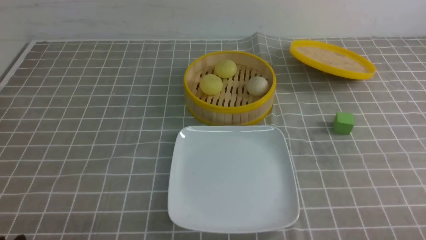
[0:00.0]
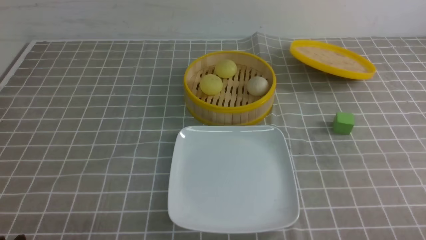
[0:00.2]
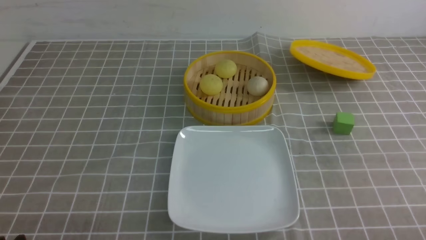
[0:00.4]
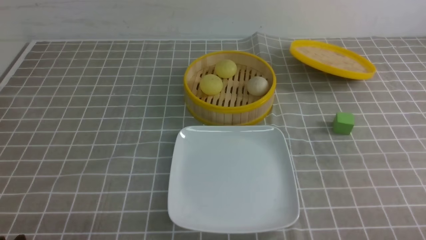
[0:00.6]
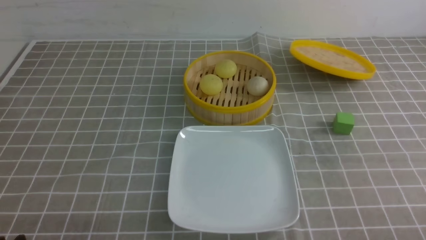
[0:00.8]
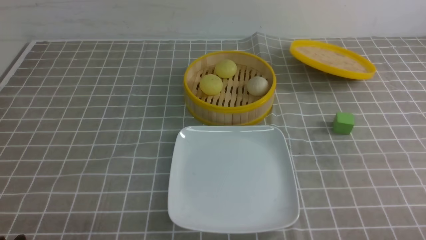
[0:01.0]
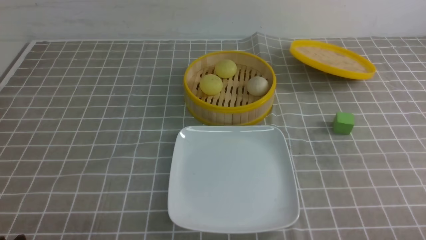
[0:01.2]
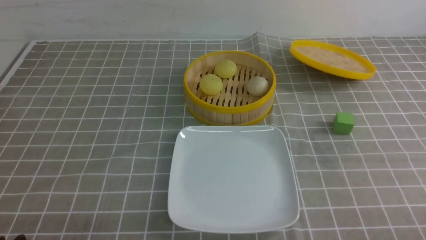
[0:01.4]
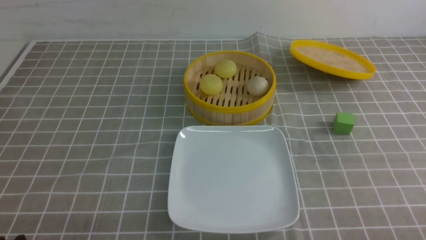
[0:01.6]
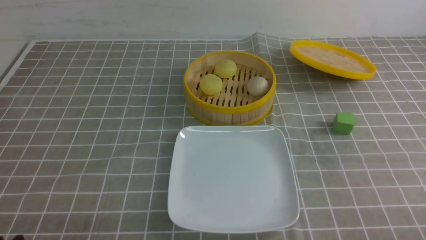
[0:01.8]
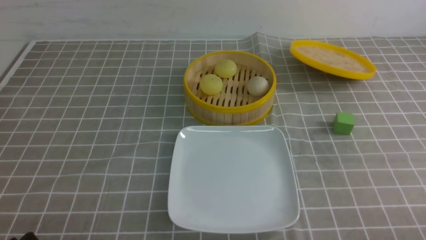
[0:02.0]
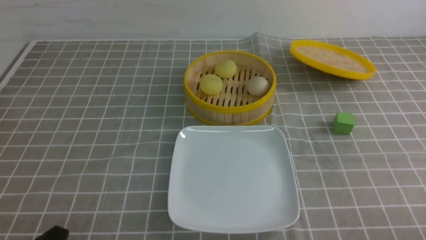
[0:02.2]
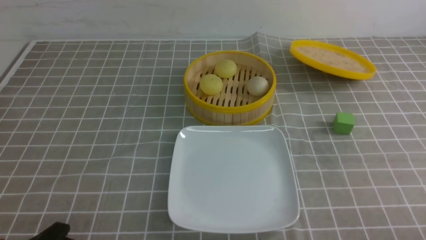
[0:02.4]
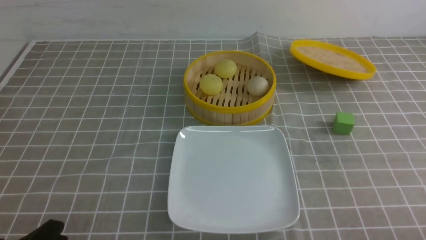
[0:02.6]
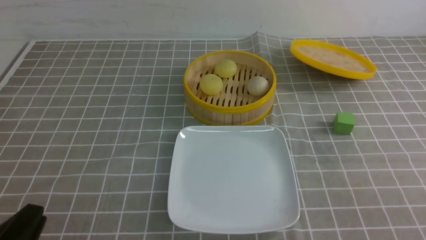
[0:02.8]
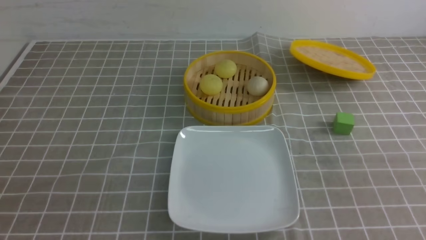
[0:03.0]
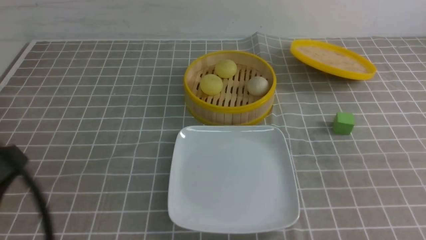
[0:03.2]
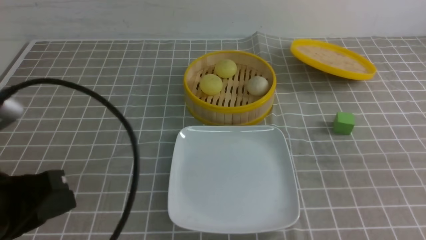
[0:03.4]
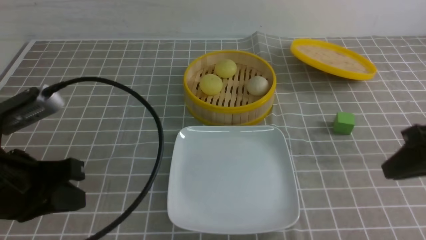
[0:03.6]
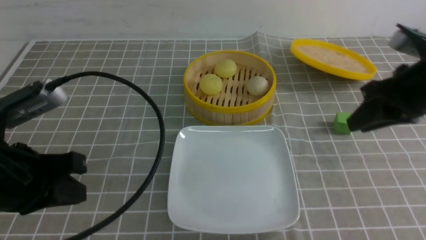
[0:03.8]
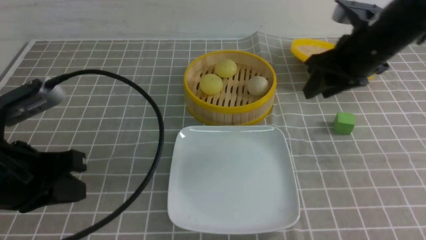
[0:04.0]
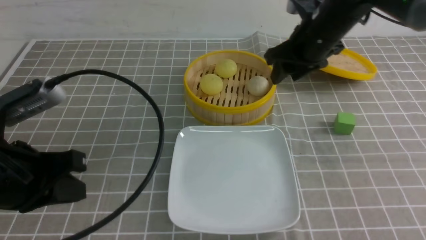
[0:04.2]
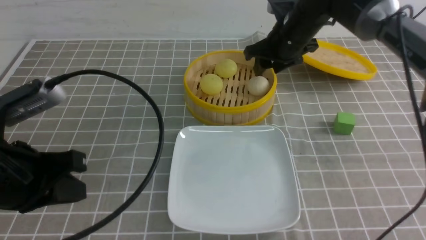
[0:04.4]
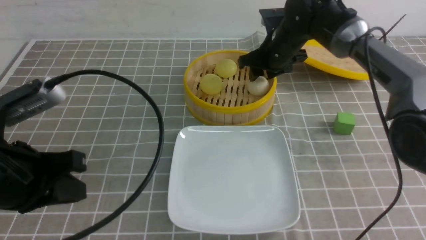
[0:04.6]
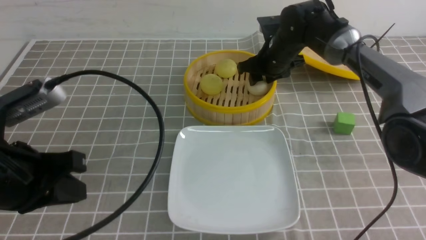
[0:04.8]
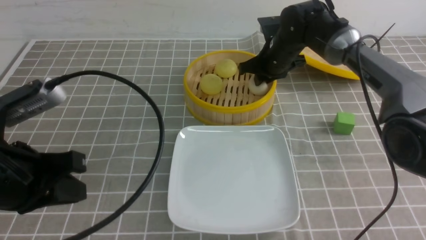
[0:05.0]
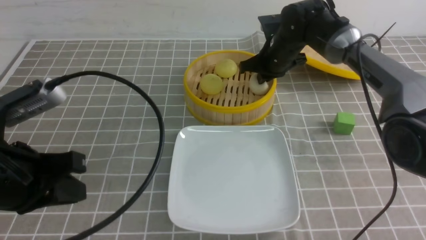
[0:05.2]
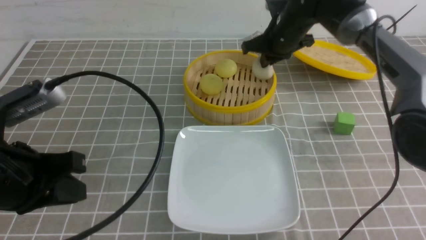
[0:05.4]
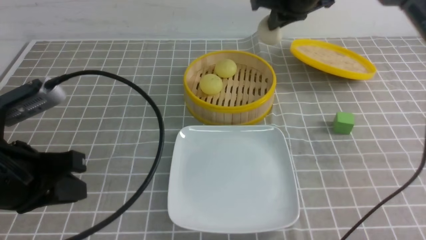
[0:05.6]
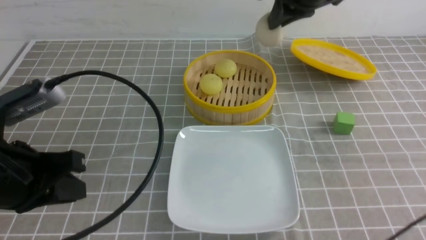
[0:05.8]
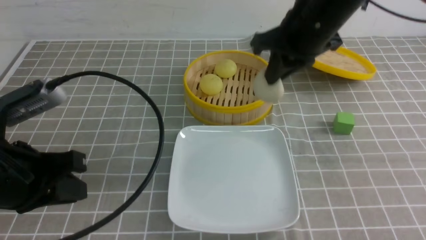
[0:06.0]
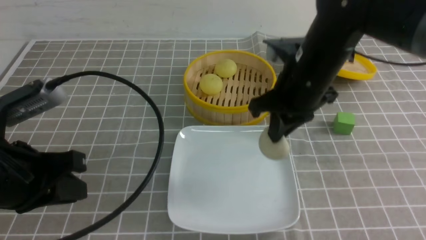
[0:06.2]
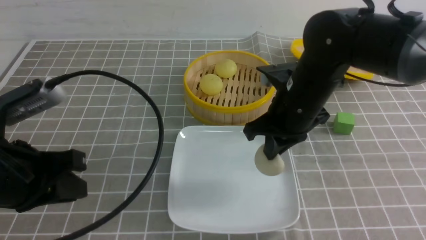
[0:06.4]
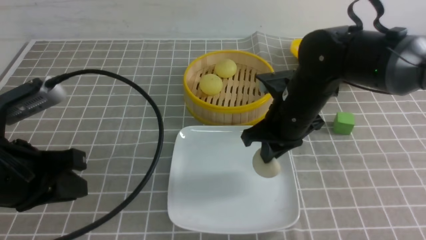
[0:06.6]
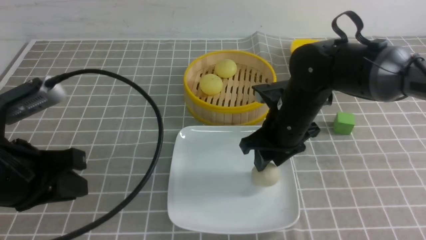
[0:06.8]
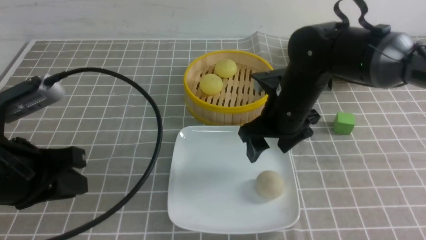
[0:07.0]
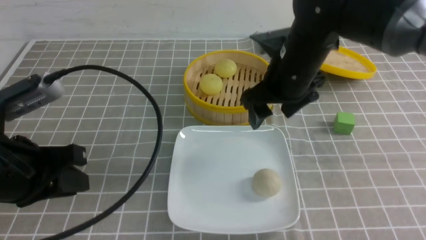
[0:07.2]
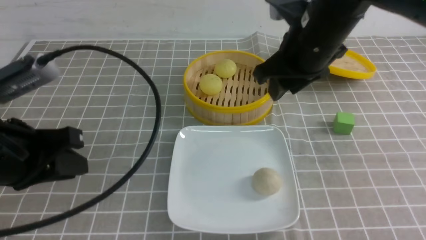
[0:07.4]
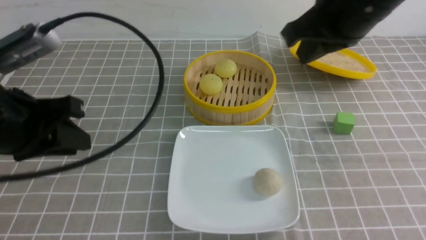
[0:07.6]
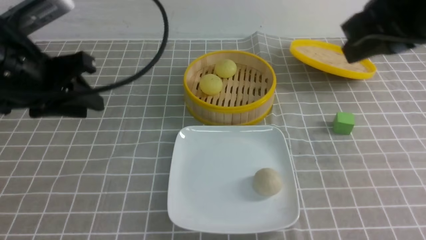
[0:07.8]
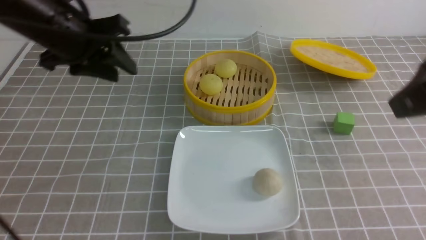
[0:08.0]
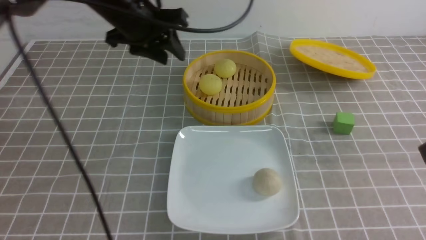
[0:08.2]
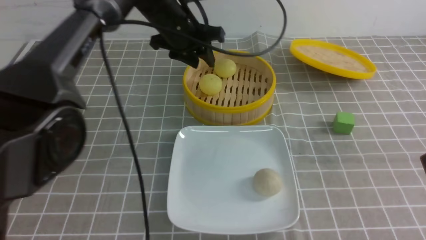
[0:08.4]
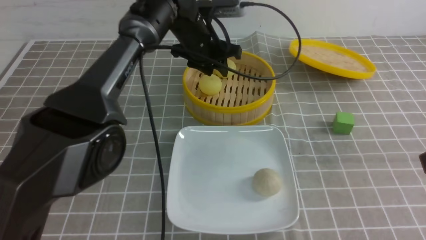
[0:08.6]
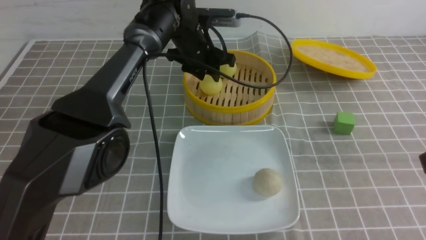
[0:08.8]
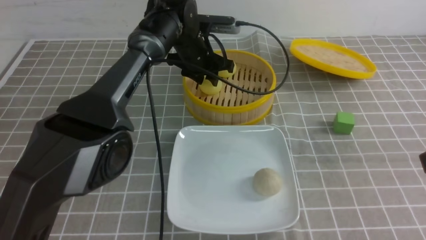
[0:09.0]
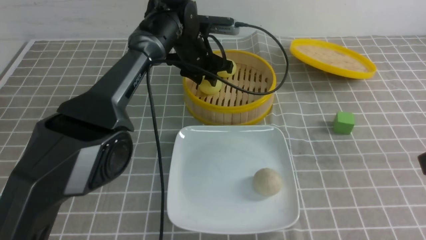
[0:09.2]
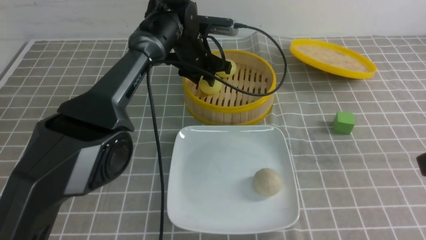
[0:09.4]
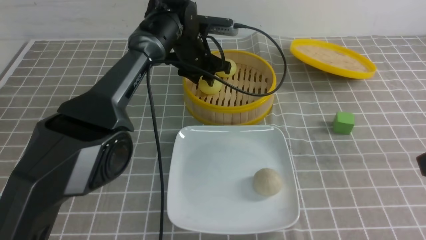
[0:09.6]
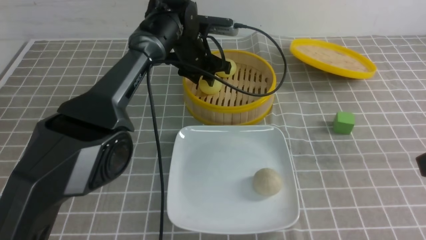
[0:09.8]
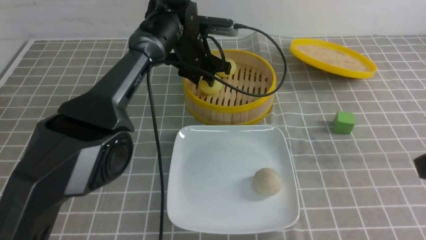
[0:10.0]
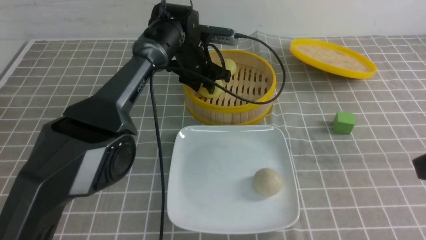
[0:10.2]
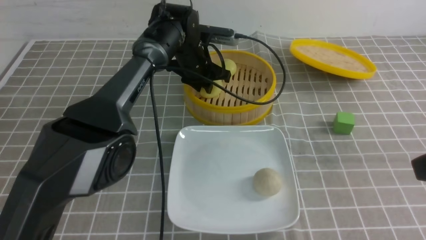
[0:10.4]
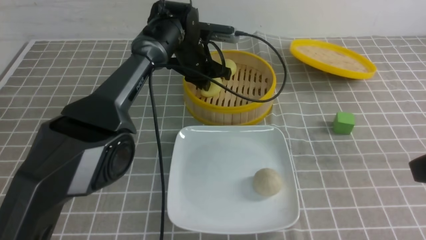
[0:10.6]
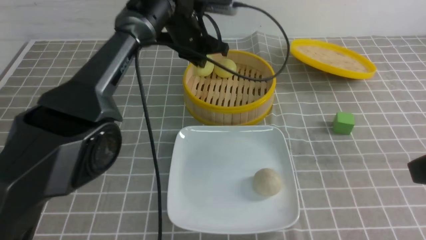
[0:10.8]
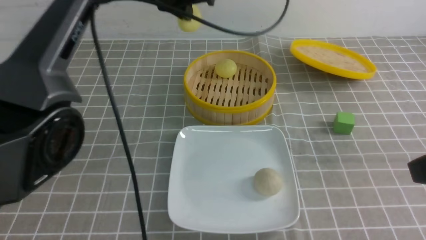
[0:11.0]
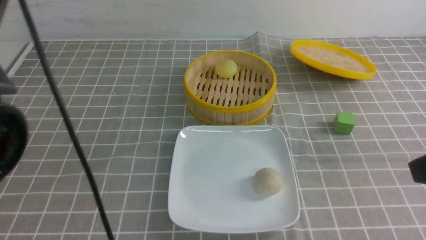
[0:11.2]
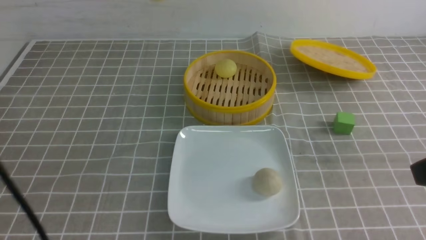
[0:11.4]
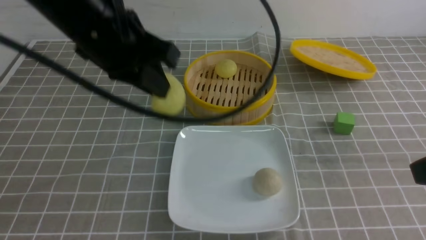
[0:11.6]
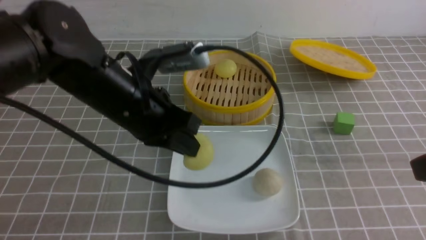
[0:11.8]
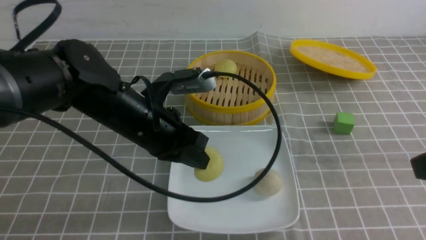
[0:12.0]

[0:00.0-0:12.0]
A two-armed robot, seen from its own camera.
Step, 0:00.0 to 0:05.2: use the right arm to grab the steamed stuffed bun that is closest to it.
Step, 0:05.4 to 0:06.6: use the right arm to put the steamed stuffed bun into the plate.
Step, 0:07.0 to 0:10.6: use the left arm to grab the steamed stuffed bun that is closest to it.
0:00.0 to 0:01.6: Both grippers stay about where they are.
0:03.0 to 0:04.4: The left gripper moves forward, some 10 cm. The right gripper travels forward and to the left by about 40 cm, and opens its fingers.
0:04.4 to 0:06.0: The right gripper is displaced backward and upward by about 15 cm, and closes up.
0:06.0 to 0:07.6: The left gripper changes place by roughly 5 cm. The right gripper travels backward and upward by about 10 cm, and opens and closes again.
0:07.6 to 0:09.0: The left gripper travels forward, to the right and downward by about 35 cm; the right gripper goes some 15 cm backward and to the right.
0:09.0 to 0:10.4: The left gripper closes its fingers.
0:10.4 to 0:12.0: The left gripper is displaced backward by approximately 20 cm, and reaches about 25 cm upward, then returns.

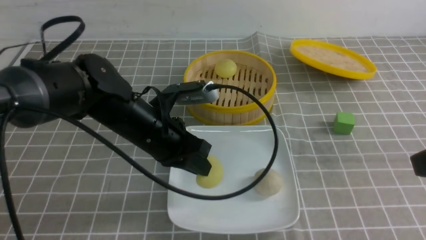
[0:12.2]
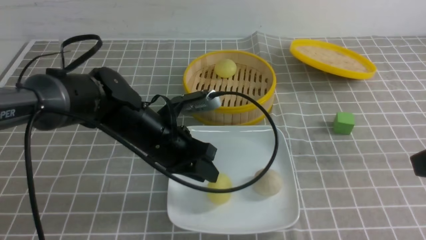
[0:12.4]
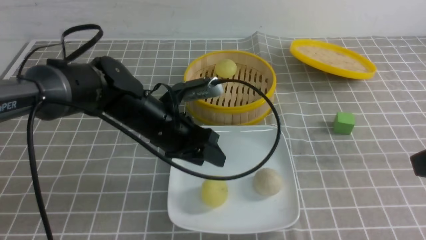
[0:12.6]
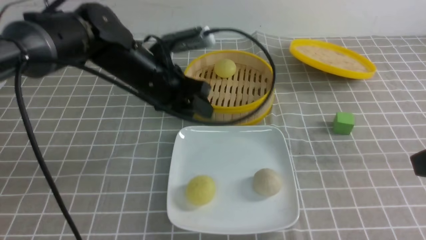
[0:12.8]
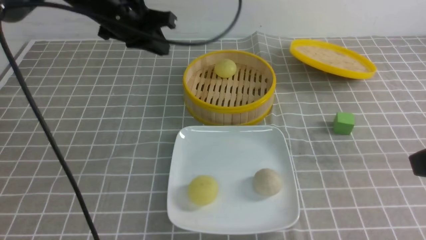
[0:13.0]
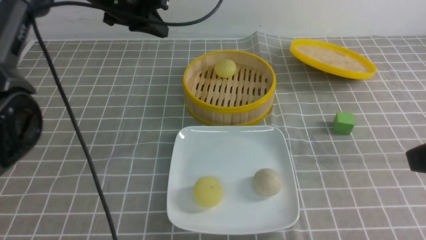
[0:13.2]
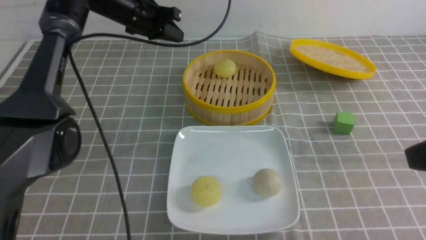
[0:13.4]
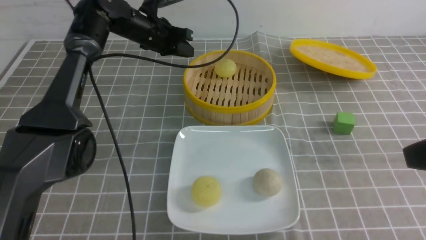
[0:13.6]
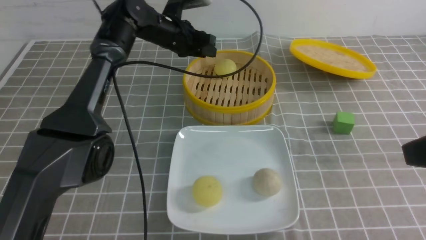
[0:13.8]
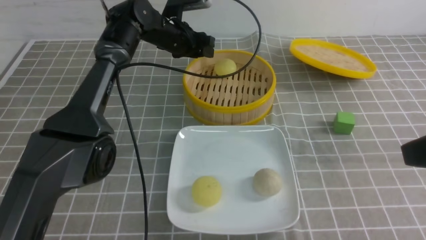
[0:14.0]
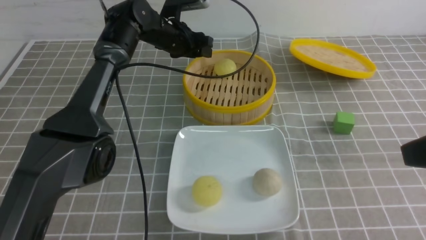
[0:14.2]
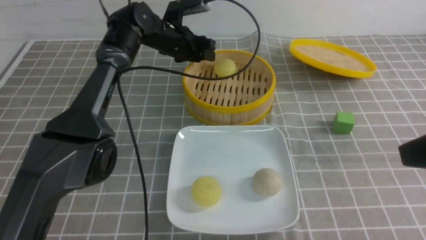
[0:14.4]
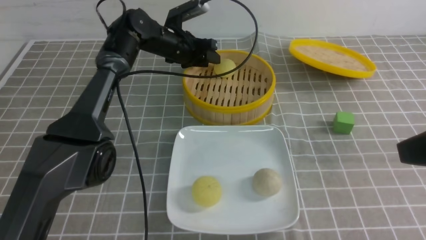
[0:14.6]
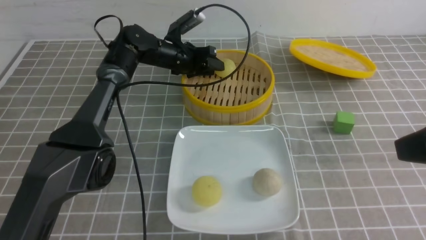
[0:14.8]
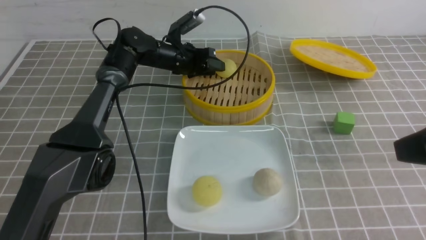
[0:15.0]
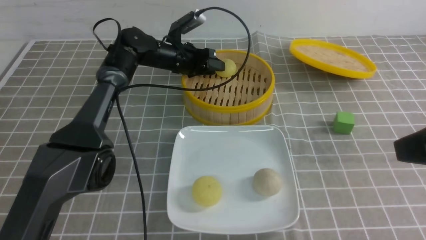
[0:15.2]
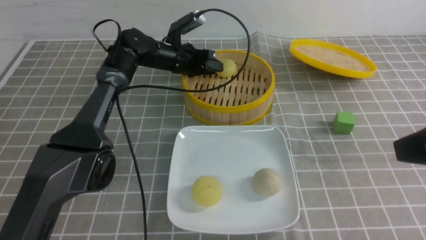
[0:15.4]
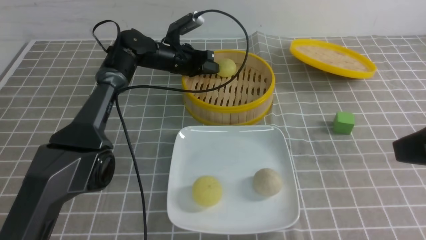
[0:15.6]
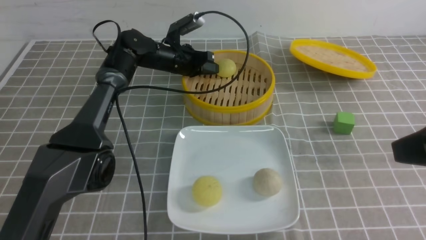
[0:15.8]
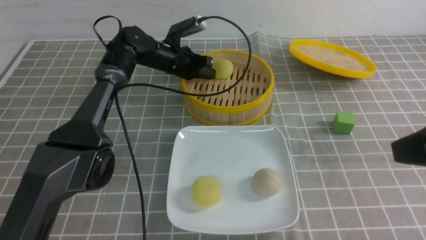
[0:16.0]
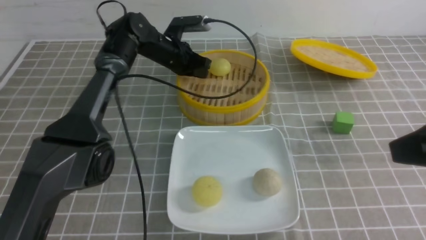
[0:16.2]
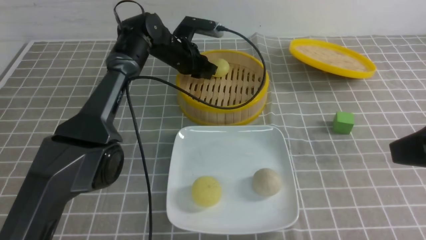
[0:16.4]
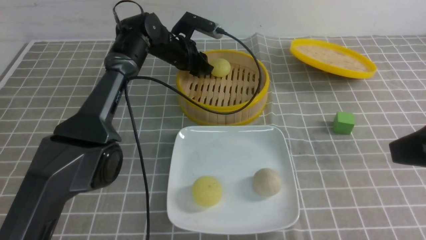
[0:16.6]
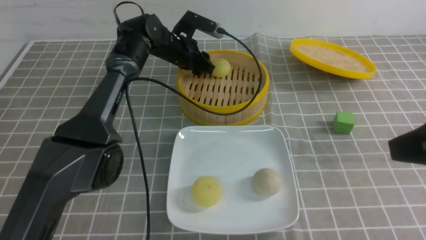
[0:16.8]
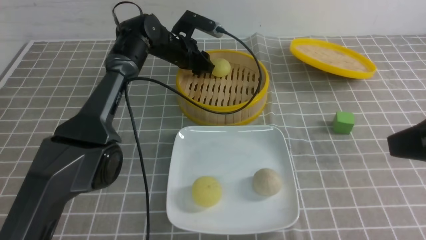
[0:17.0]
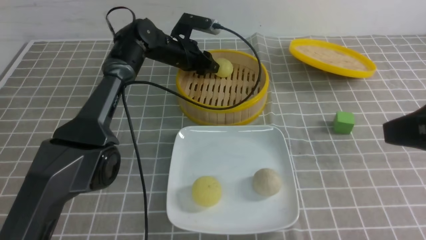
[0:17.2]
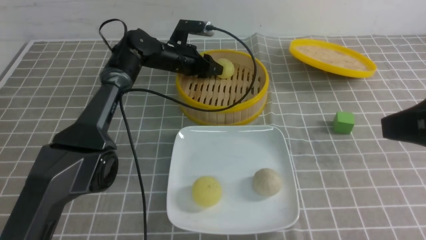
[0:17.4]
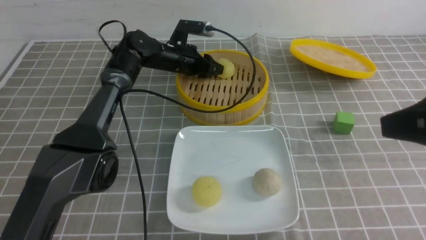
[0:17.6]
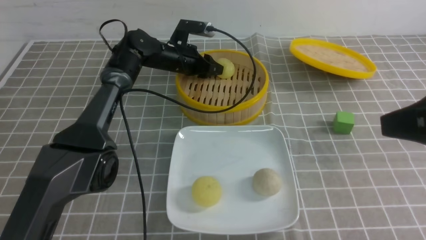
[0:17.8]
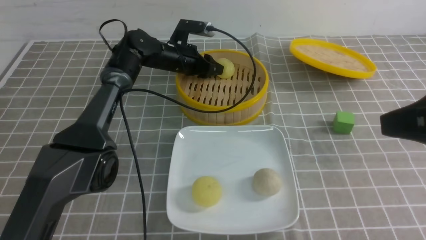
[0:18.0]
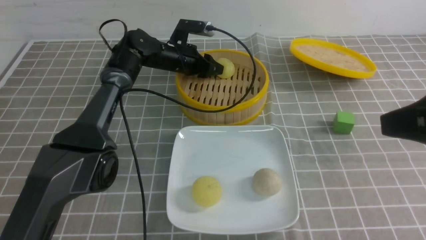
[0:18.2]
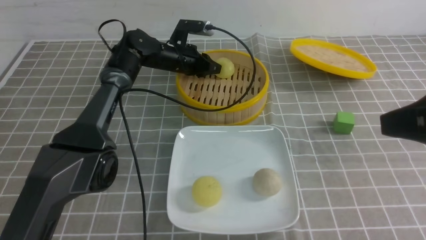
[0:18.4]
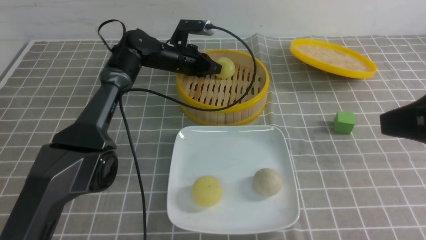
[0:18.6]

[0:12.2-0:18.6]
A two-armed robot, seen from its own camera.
0:12.2 to 0:13.8: The left gripper moves forward, approximately 25 cm, and opens its fingers.
0:13.8 to 0:15.4: The left gripper goes approximately 5 cm downward.
0:15.4 to 0:17.0: The left gripper opens up.
0:17.0 to 0:18.6: The left gripper closes.
